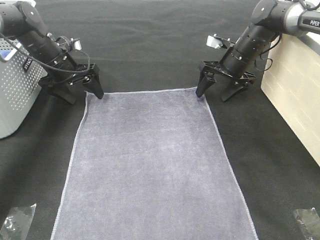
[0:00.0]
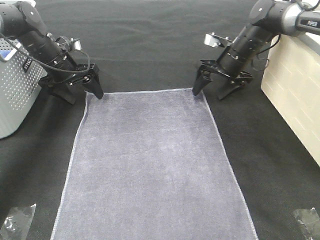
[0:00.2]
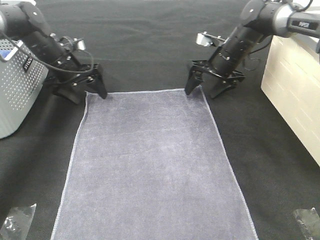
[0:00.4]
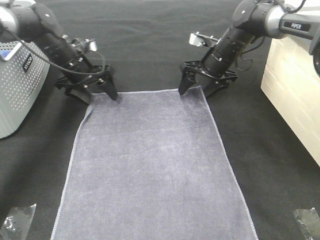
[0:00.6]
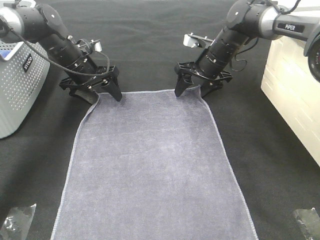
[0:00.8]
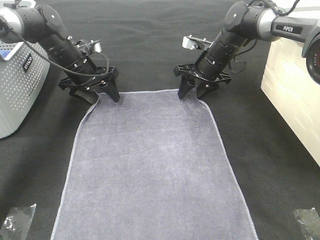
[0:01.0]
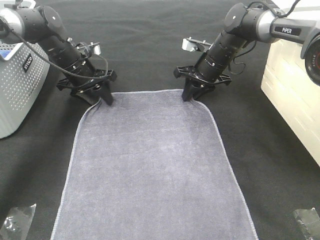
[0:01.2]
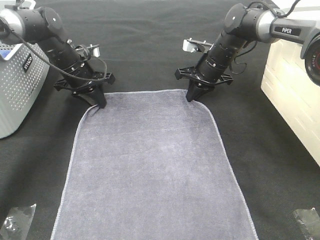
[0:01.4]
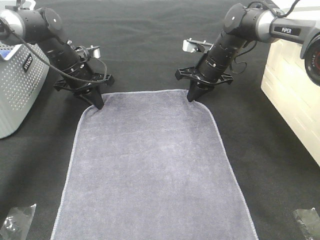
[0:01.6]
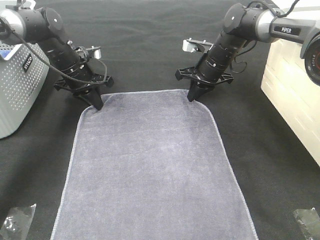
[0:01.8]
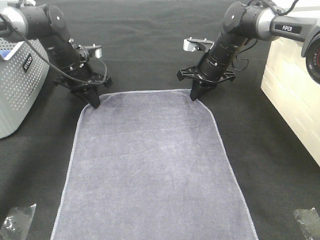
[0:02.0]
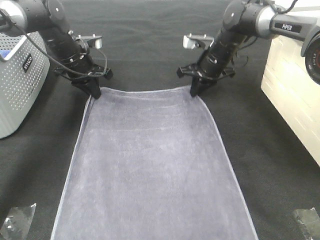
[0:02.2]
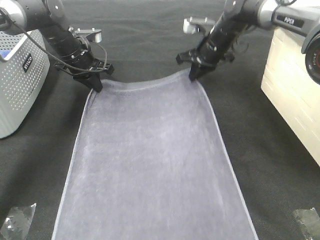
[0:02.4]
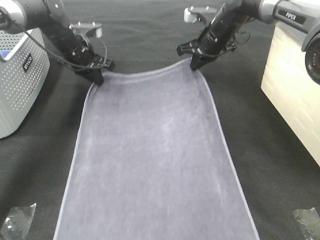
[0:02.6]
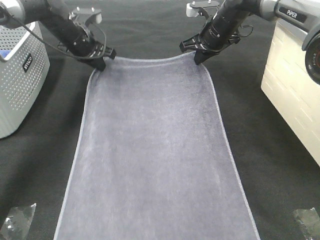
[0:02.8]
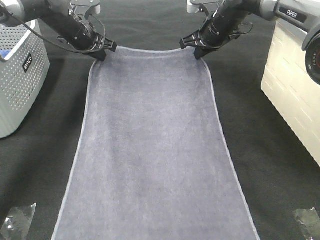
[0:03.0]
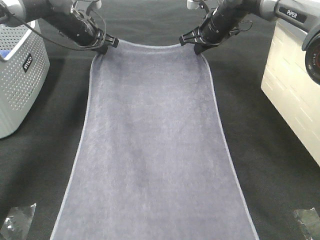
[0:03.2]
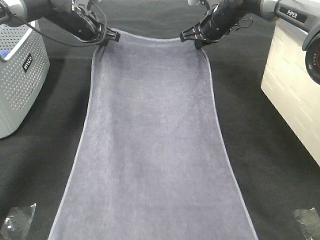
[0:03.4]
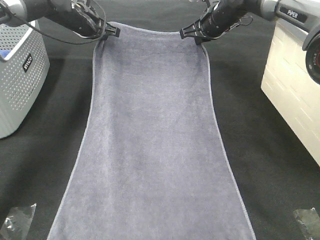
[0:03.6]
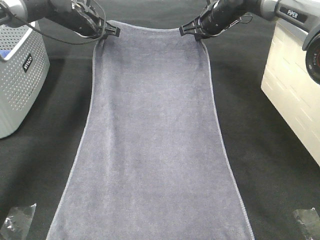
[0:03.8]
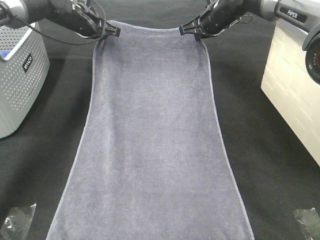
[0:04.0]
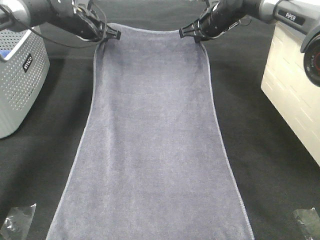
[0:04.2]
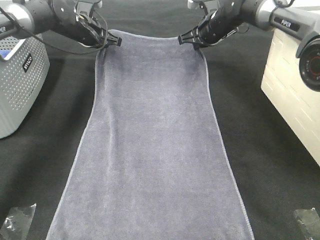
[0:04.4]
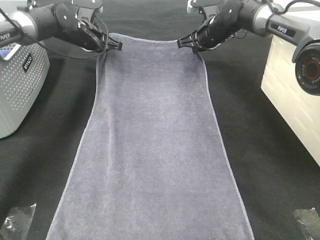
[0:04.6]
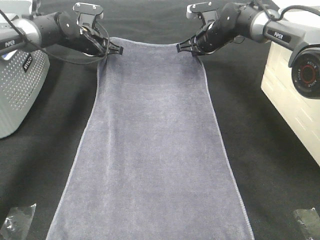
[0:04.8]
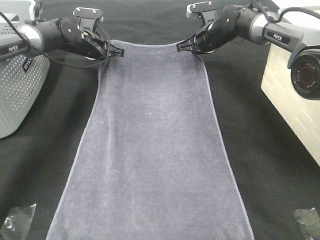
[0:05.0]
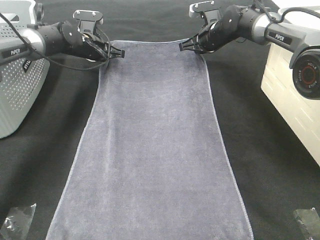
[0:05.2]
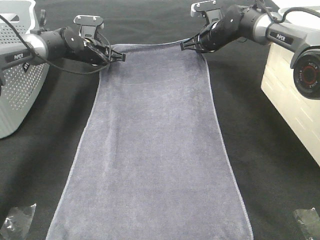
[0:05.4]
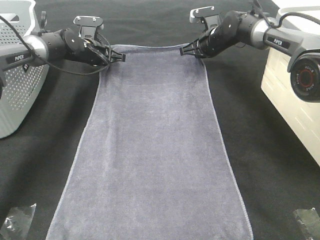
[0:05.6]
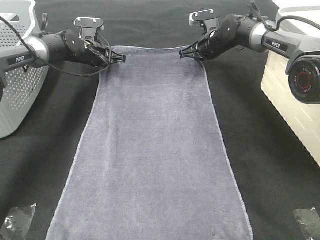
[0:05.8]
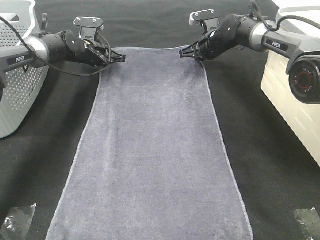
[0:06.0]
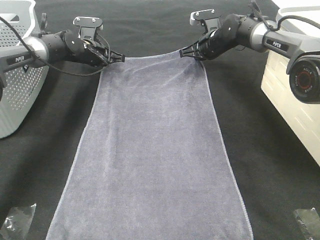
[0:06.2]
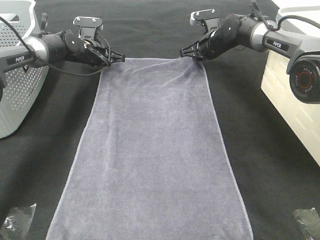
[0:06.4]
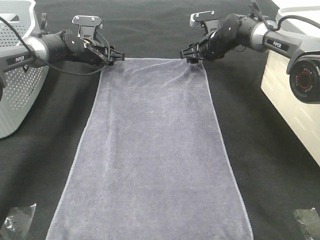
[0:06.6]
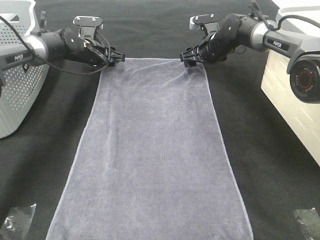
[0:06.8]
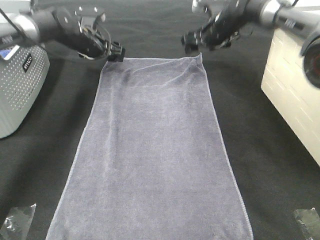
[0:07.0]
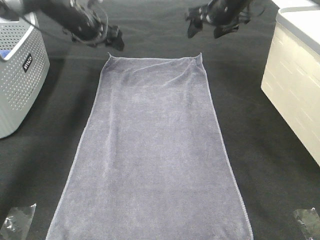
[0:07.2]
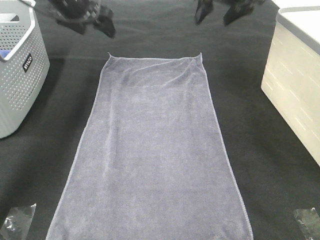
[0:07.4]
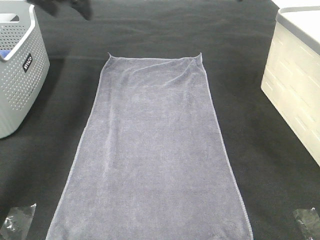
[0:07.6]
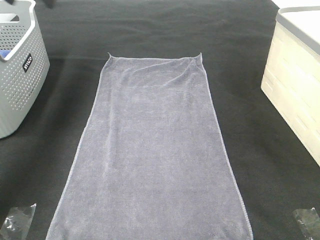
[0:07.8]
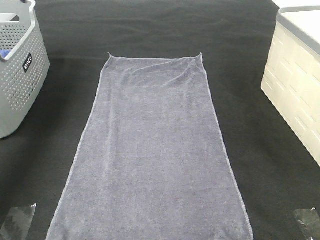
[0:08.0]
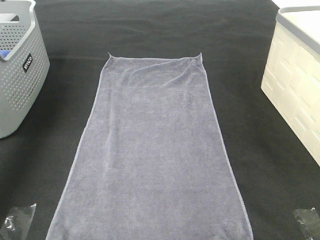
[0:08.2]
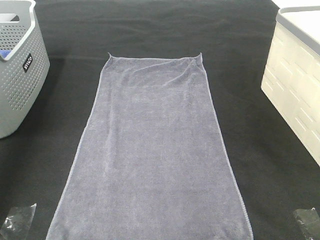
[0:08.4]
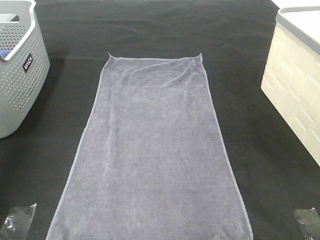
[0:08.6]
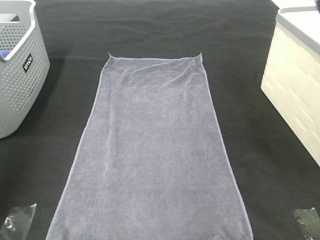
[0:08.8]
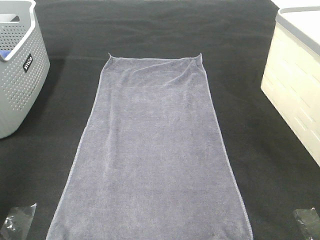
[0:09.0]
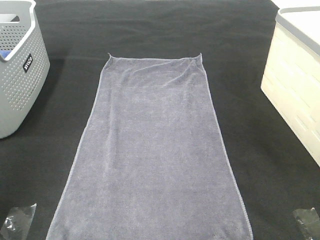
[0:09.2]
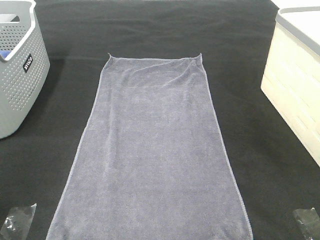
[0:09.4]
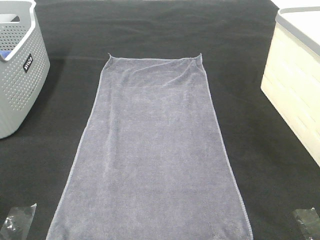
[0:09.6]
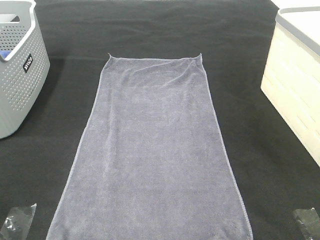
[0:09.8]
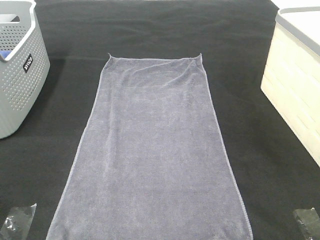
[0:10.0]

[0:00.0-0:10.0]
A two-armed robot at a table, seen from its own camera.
Task of the whole recording: Remove the towel and place it.
0.0 to 1.4 s: The right gripper goes roughly 5 cm to the left, and closes. Meanwhile the left gripper closes its fingers.
1.4 to 2.8 s: Both grippers move upward, roughly 5 cm.
4.2 to 5.8 s: Both grippers travel together downward, approximately 10 cm.
5.8 to 7.2 s: Both grippers travel together upward, roughly 10 cm. The right gripper opens its fingers; the left gripper opens its fingers.
7.2 to 8.6 s: The left gripper shifts some 40 cm backward, to the left and upward, while the right gripper travels backward and upward by roughly 35 cm.
8.6 to 10.0 s: The right gripper is displaced backward and downward by roughly 30 cm. The left gripper travels backward by some 30 cm.

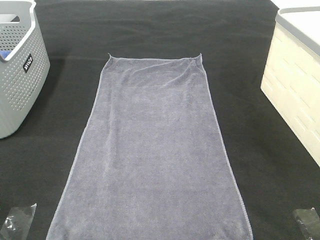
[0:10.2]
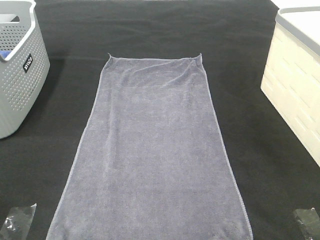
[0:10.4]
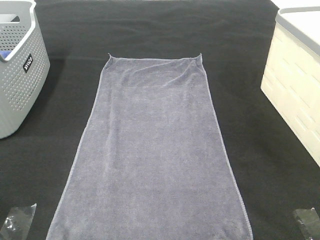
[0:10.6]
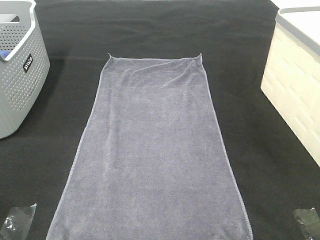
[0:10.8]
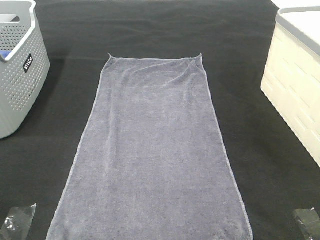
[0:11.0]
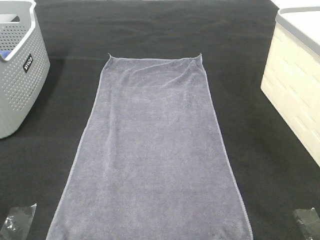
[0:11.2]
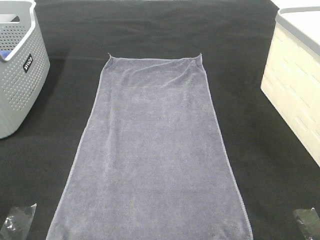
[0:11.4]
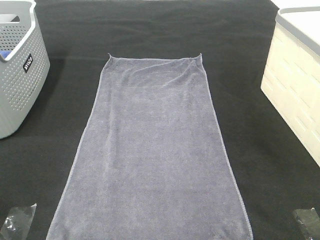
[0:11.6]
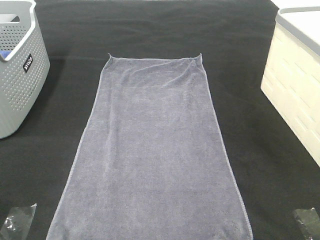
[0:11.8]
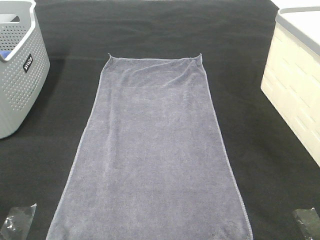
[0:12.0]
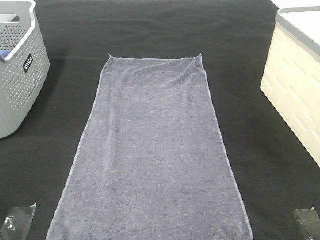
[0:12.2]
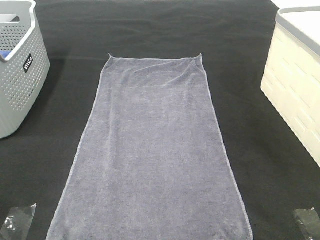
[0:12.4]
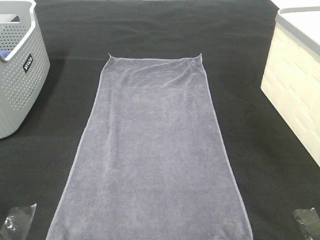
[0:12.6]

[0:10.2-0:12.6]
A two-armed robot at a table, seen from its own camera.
Task of the whole recording: Remove the towel and place it.
11.4 to 12.6 s: The two grippers keep their place.

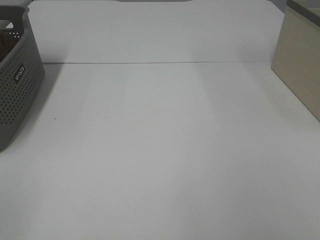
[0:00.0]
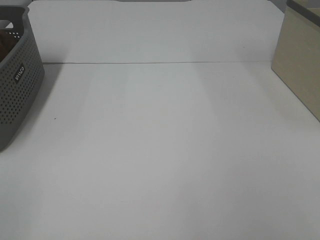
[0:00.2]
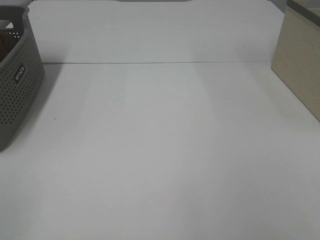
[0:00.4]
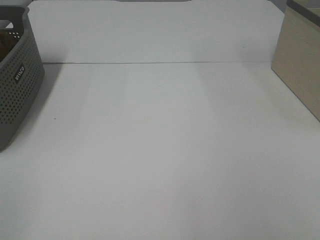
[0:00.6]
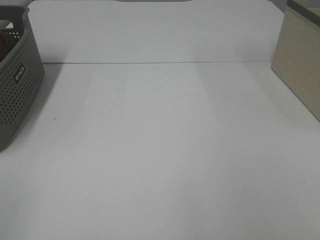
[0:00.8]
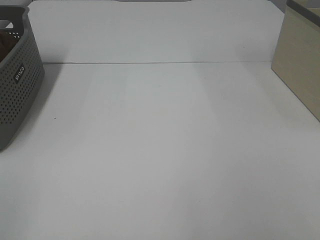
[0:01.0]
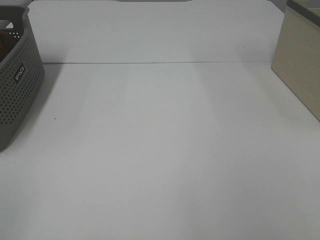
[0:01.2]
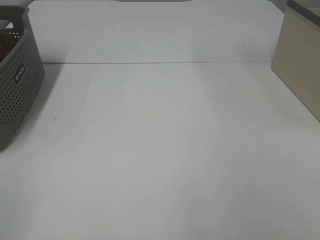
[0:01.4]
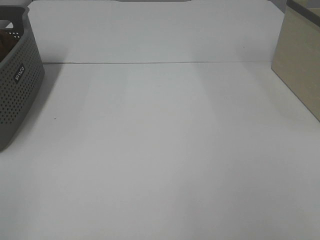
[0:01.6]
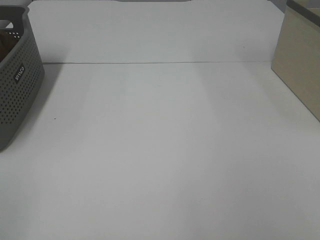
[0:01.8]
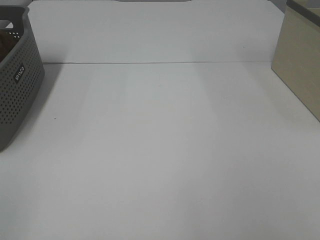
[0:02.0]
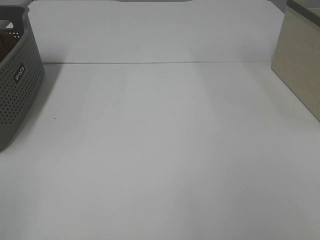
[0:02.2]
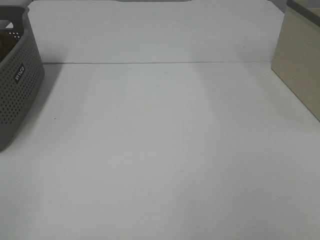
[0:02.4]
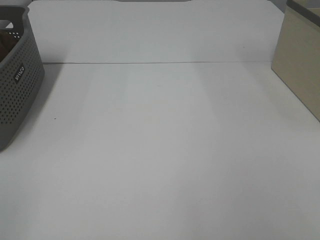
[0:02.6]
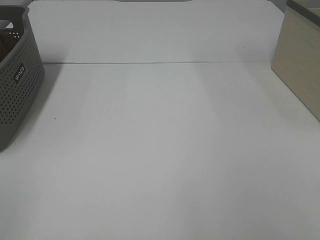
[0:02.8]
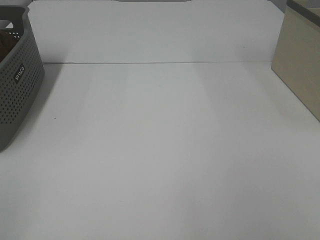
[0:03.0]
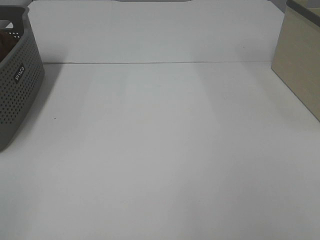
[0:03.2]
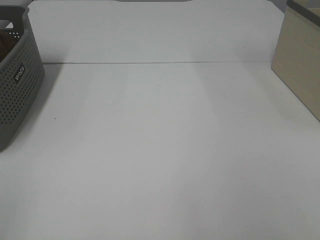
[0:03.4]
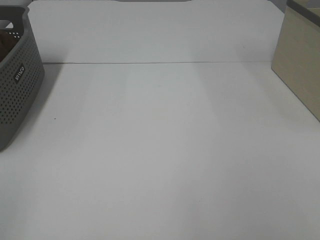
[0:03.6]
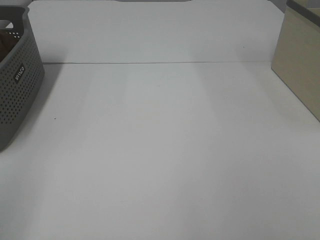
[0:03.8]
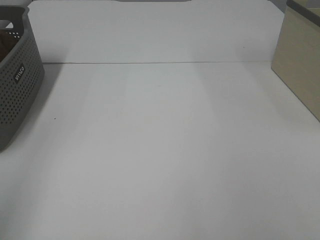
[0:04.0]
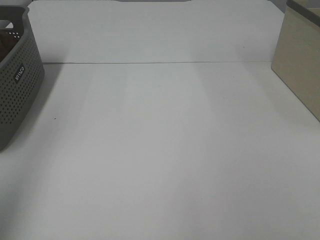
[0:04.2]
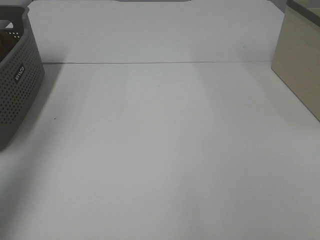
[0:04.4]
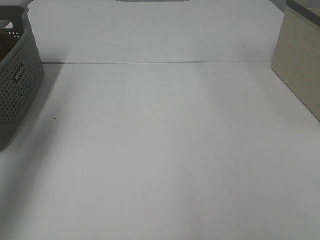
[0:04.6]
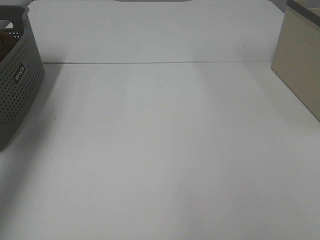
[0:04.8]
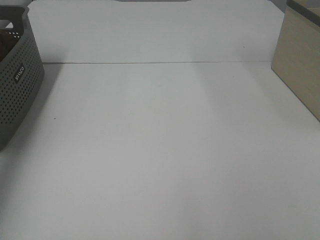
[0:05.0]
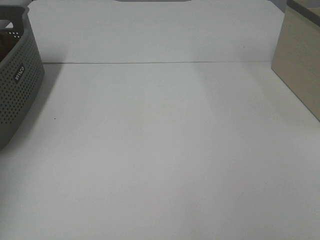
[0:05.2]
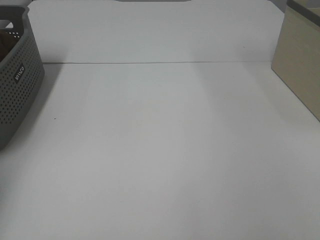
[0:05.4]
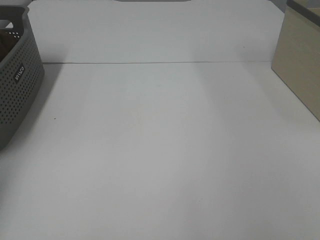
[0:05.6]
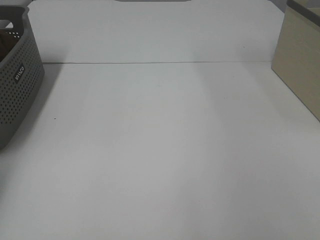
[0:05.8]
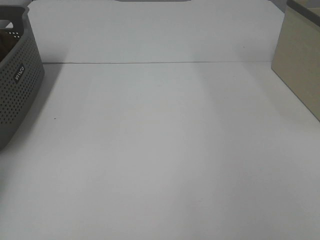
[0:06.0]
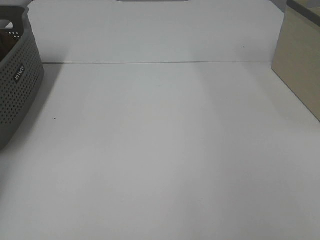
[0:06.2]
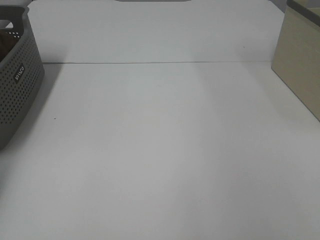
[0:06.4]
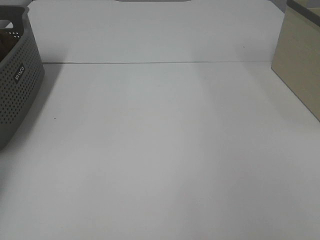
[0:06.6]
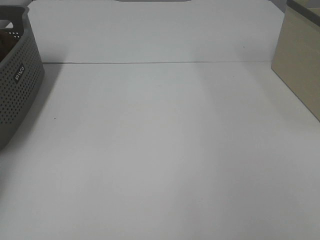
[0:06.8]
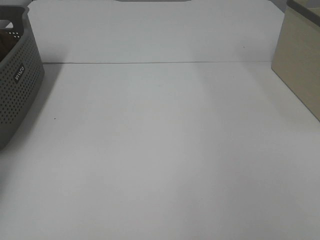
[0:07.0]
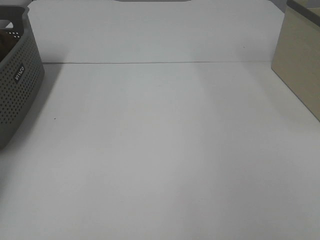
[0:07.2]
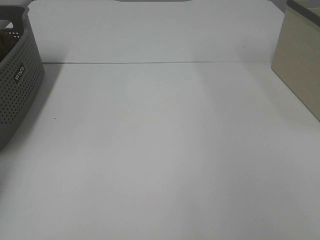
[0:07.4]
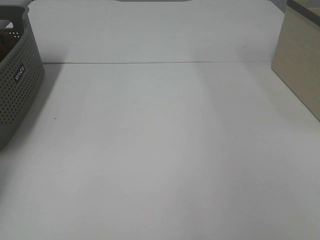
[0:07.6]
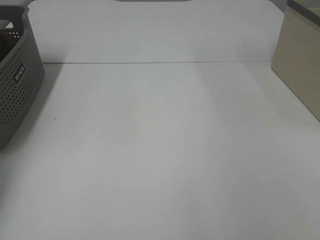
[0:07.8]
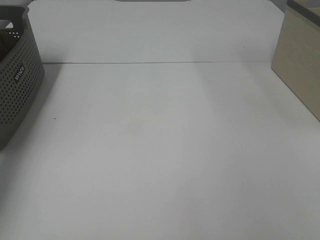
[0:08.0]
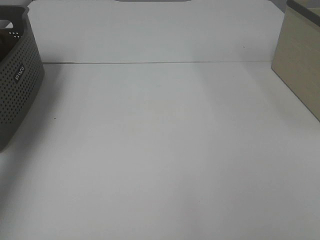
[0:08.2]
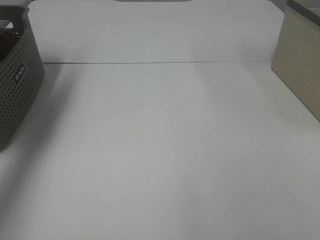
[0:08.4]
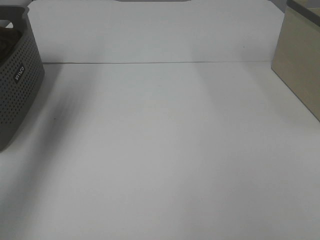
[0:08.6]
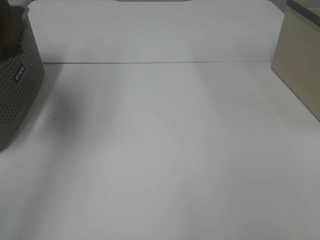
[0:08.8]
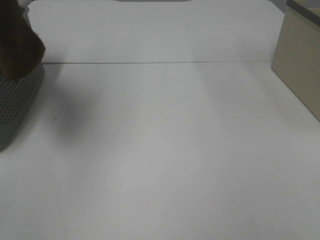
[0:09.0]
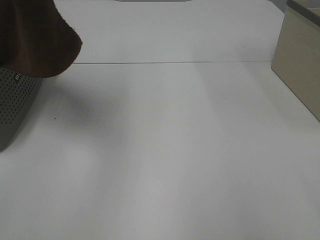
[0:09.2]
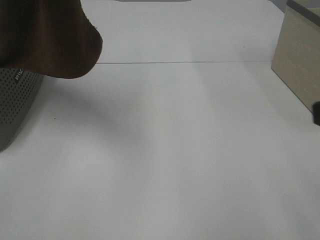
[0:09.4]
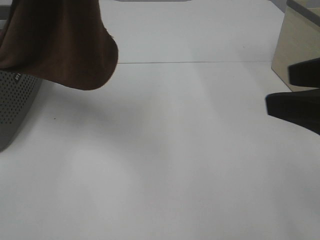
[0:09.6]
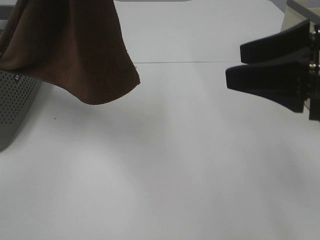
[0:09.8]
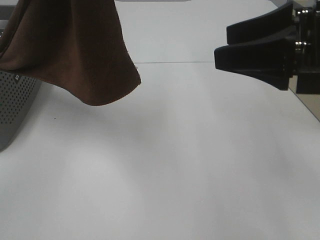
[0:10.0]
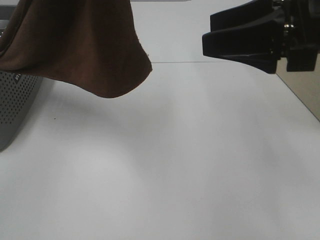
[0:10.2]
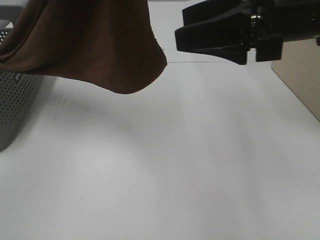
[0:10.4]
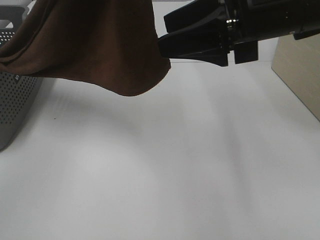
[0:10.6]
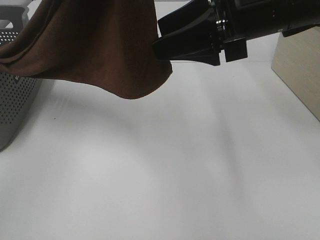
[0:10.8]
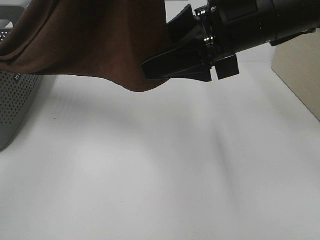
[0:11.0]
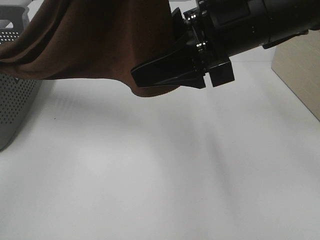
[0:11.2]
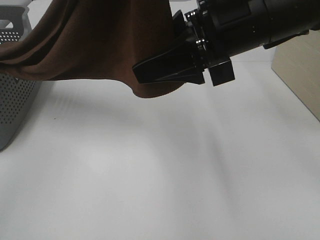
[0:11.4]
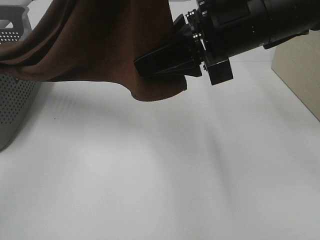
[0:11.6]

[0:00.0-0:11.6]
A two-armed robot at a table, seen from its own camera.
Task of the whole recording: Remove the towel and place it.
0.0 to 2.8 s: The two grippers keep their place.
2.8 to 4.4 s: The left gripper heads forward and upward, covering some 25 cm.
4.4 to 5.8 s: The left gripper travels forward, downward and to the left by some 30 cm.
7.2 to 8.8 s: The left gripper travels upward, to the right and backward by approximately 35 cm.
8.8 to 10.2 s: The right gripper is displaced forward and to the left by roughly 25 cm. The left gripper heads to the right and backward, covering approximately 20 cm.
10.2 to 11.6 s: The right gripper heads to the left, covering about 10 cm, and closes.
